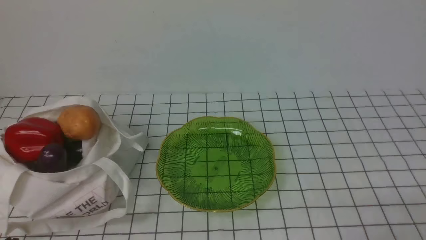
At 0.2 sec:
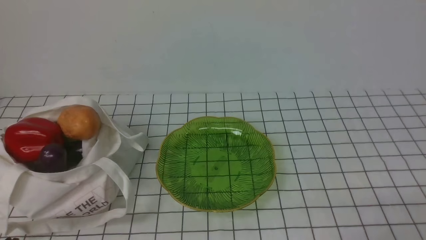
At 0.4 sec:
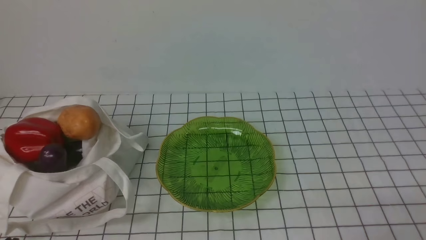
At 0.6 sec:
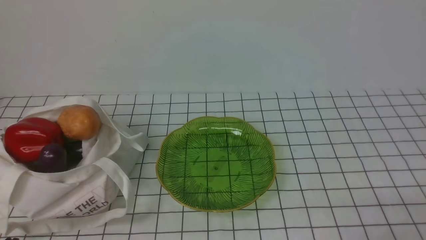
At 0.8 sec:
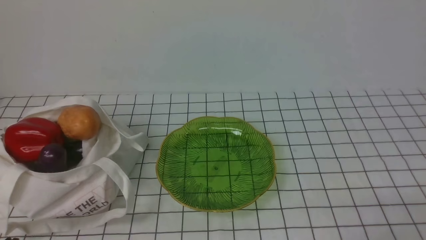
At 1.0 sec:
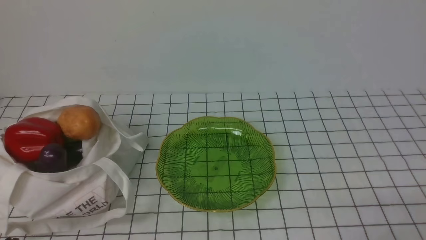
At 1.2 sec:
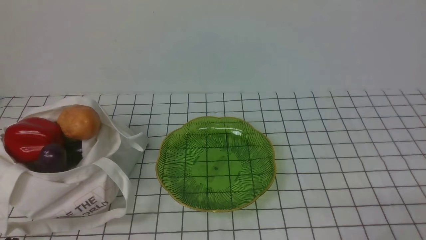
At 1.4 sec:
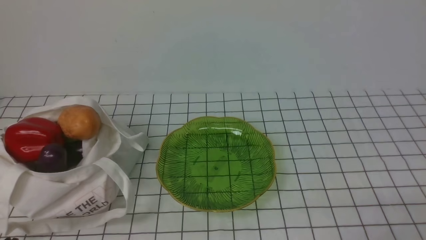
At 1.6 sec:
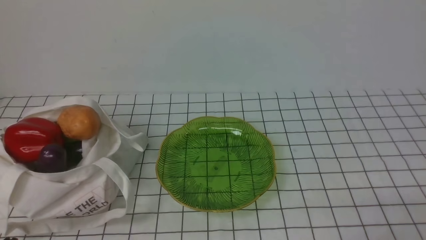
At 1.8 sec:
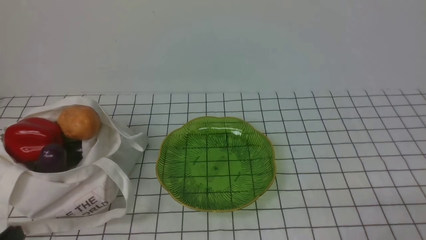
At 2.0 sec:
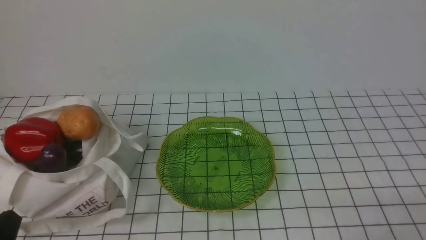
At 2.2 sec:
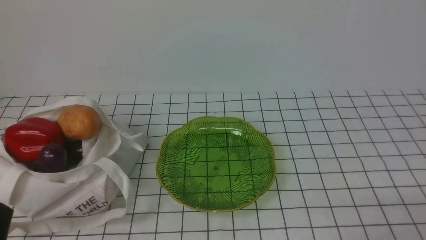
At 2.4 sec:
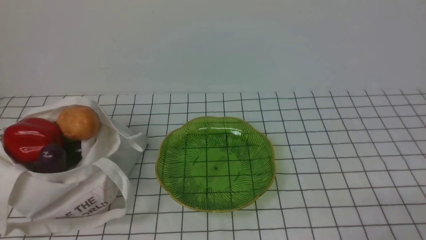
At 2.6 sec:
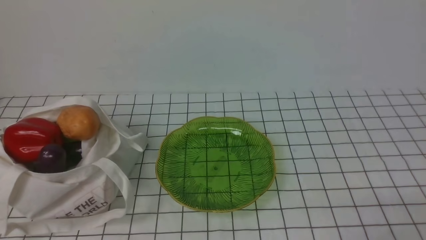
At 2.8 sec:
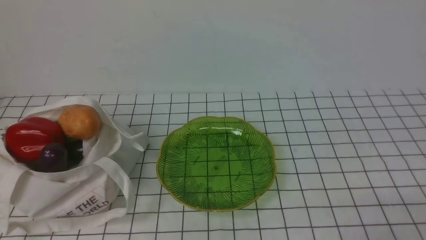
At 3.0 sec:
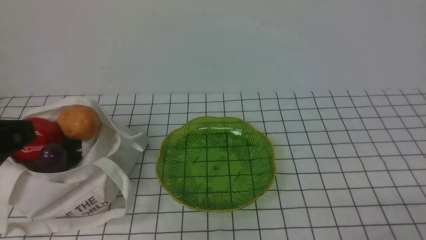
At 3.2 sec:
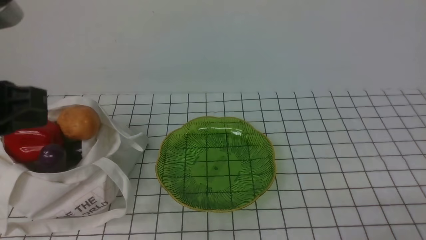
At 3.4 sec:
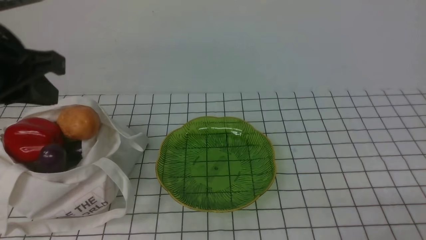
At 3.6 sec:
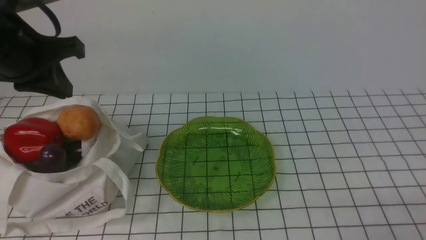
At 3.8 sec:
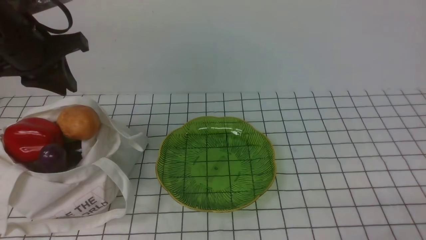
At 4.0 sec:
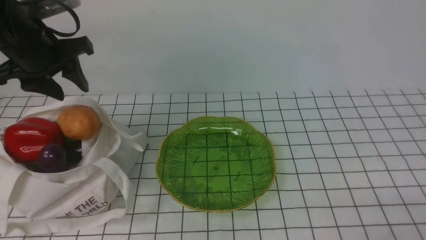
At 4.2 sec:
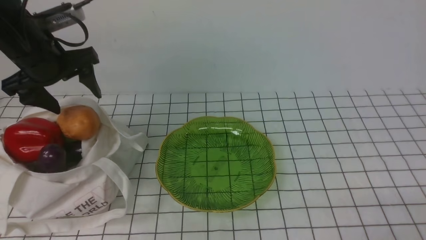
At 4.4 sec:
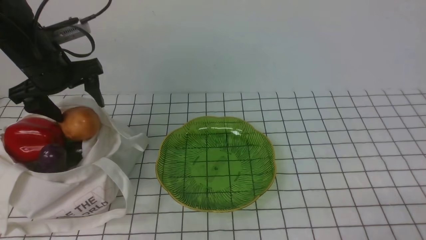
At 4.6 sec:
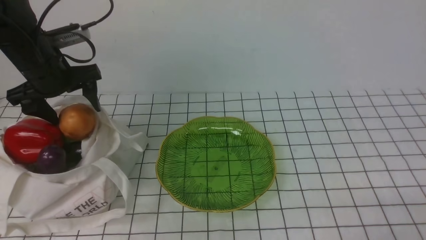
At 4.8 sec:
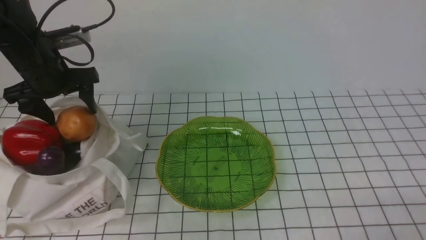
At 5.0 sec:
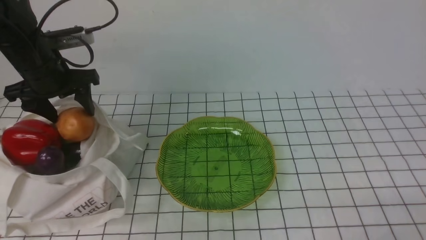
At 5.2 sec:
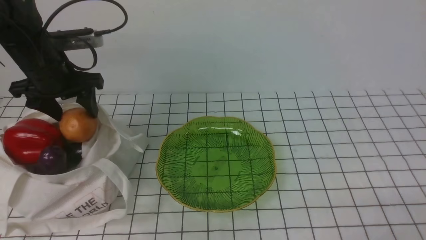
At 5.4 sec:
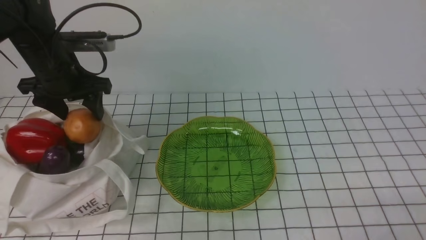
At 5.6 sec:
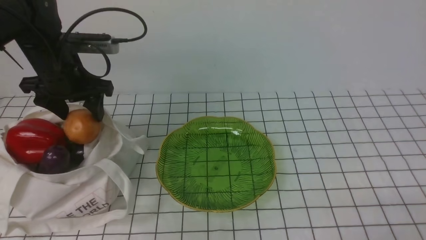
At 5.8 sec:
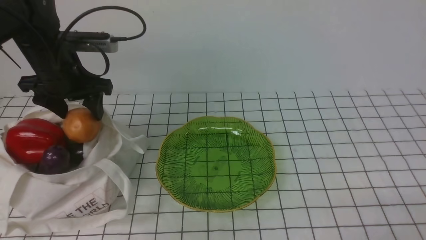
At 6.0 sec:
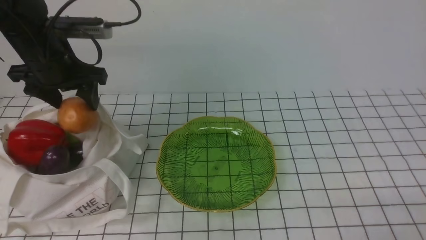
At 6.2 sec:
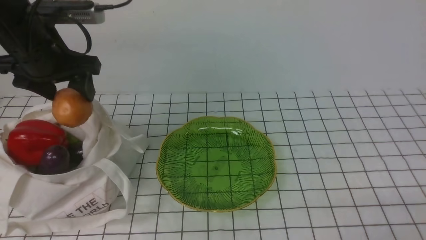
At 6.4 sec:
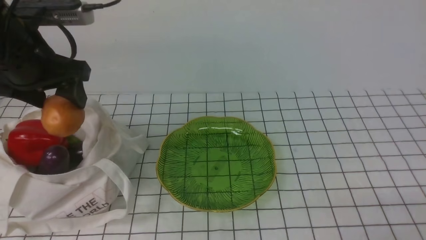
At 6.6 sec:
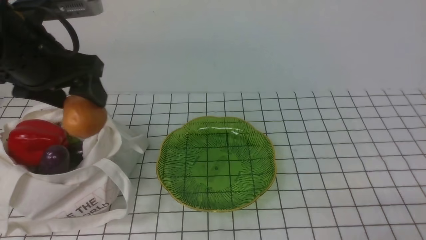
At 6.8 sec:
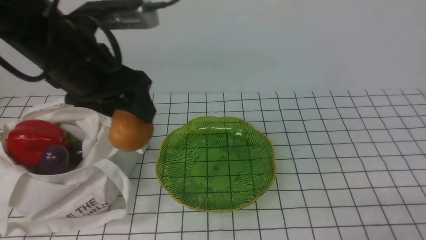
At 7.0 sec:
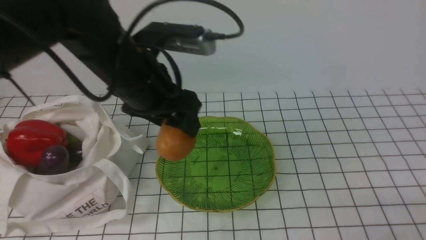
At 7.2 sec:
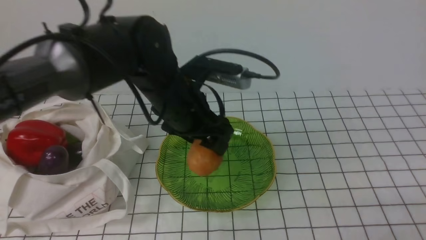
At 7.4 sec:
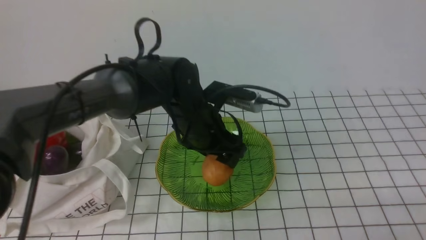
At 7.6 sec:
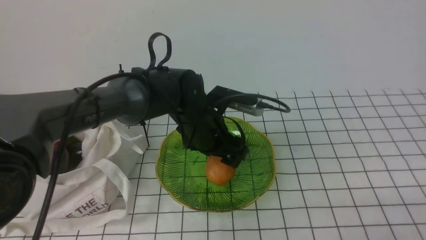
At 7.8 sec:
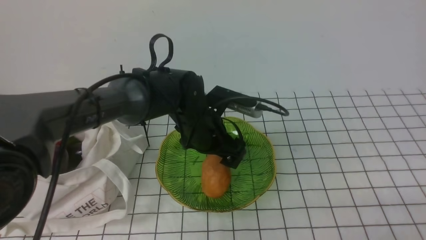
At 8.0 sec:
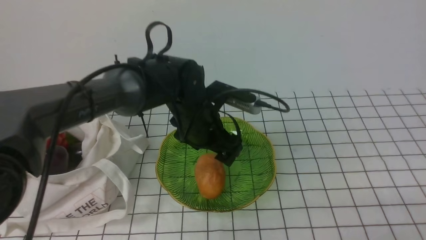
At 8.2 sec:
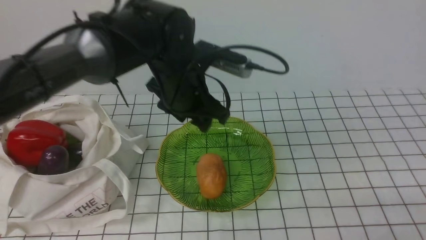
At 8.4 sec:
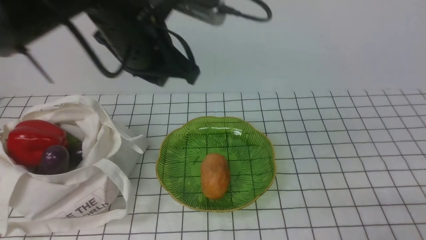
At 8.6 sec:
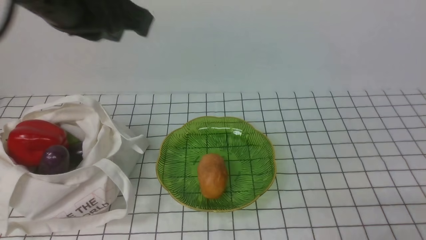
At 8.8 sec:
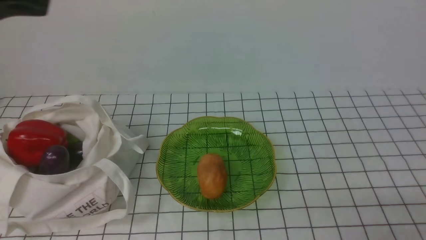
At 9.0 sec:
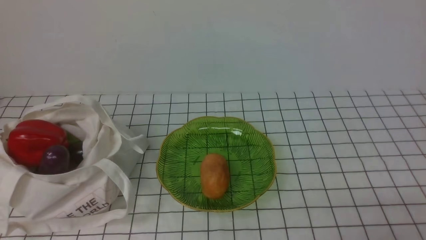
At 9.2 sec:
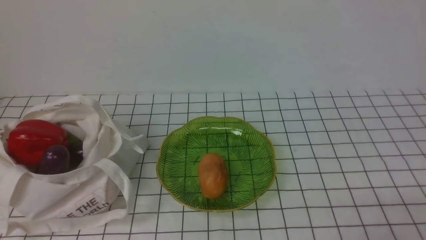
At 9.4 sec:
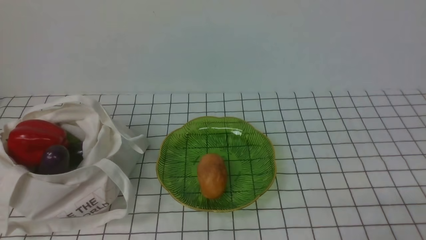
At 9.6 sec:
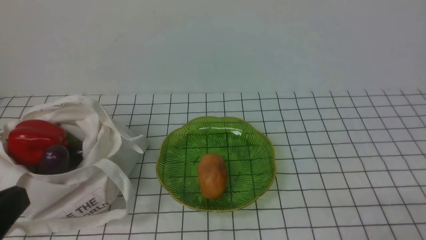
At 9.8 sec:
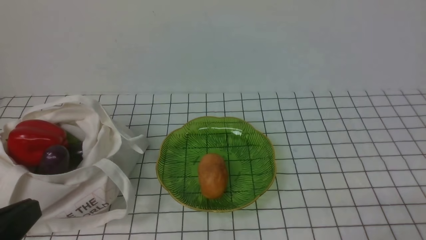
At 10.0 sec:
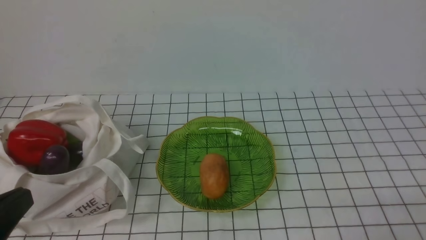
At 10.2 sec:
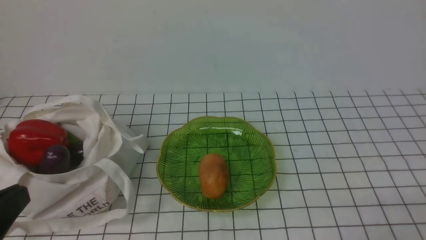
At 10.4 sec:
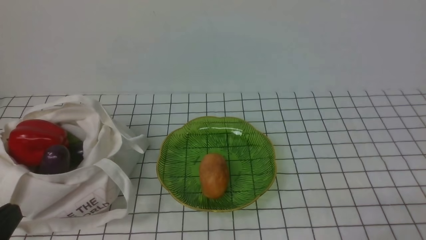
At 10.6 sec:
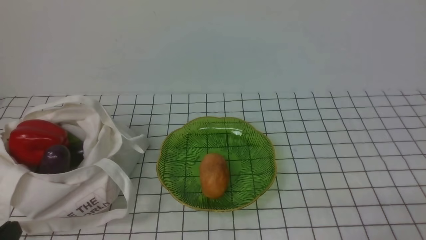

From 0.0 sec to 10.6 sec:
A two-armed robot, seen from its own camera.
Task of the whole recording: take vegetables from bag on white checkered tablecloth place on plate.
Step, from 0.0 sec to 5.4 sec: Grasp the potato with left gripper.
Step, from 5.6 sec to 8.0 sec: Place the potato on the plate with left gripper.
From 1.6 sec to 3.0 sec: The left gripper shifts roughly 20 cm upward.
From 3.0 sec to 4.6 sec: The left gripper is displaced forward by roughly 30 cm, and opens its fingers.
From 6.0 sec to 7.6 sec: The left gripper heads to the right and downward, covering about 25 cm.
From 7.6 sec to 9.0 sec: The left gripper is displaced upward, backward and to the left by approximately 40 cm, and closes.
From 9.0 sec to 10.6 sec: The left gripper shifts about 25 cm downward.

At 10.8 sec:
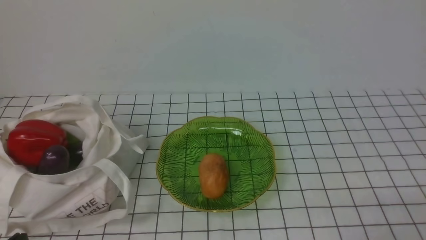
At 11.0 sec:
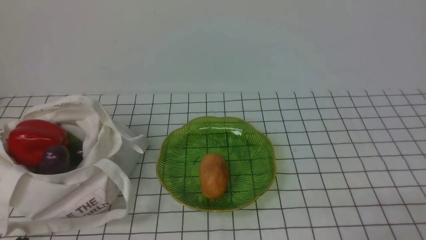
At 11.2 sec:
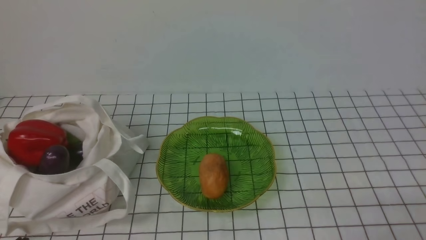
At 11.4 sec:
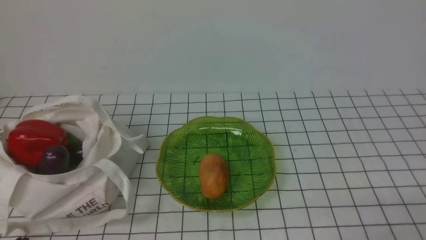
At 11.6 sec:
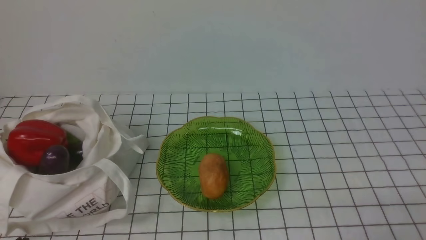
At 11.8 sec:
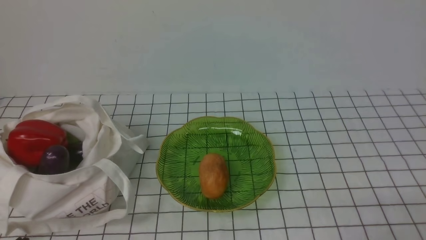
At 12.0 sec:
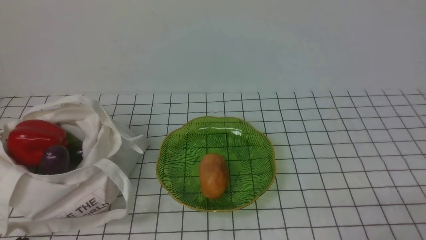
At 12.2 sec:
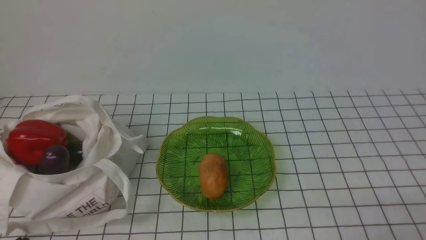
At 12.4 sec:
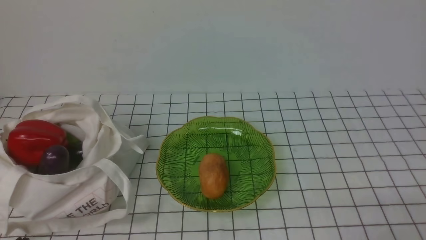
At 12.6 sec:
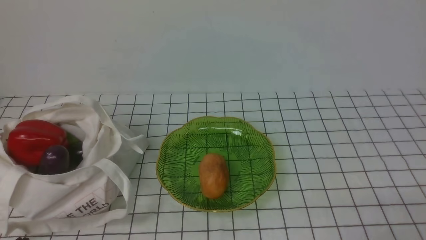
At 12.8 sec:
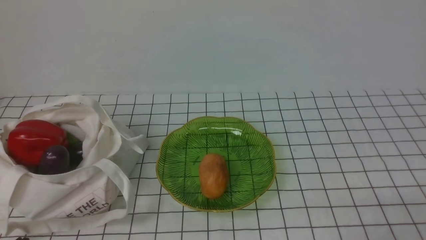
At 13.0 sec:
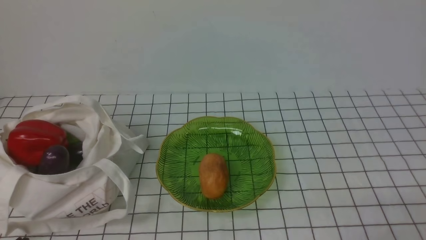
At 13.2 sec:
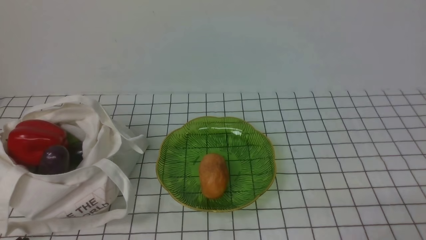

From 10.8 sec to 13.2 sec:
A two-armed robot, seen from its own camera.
Task of the whole recording: take vegetables from bag on white checkered tablecloth place on plate.
From 12.0 sec to 13.2 sec: The two grippers keep their place.
